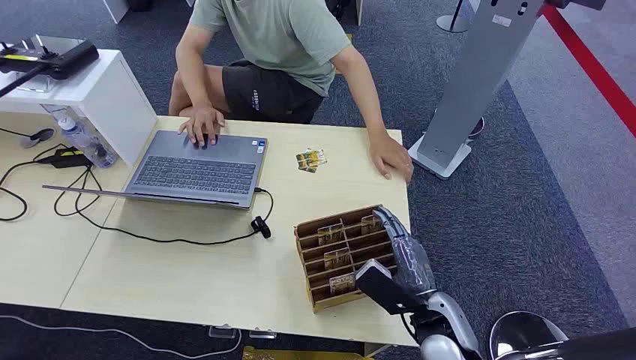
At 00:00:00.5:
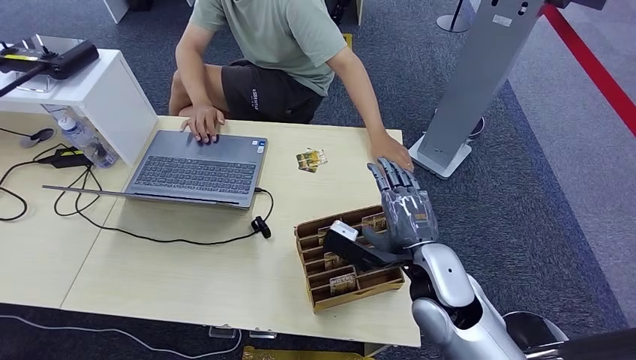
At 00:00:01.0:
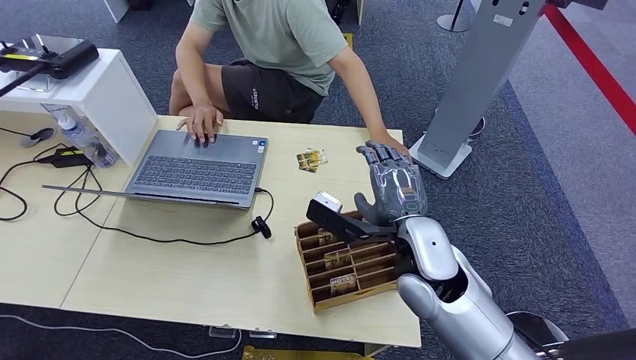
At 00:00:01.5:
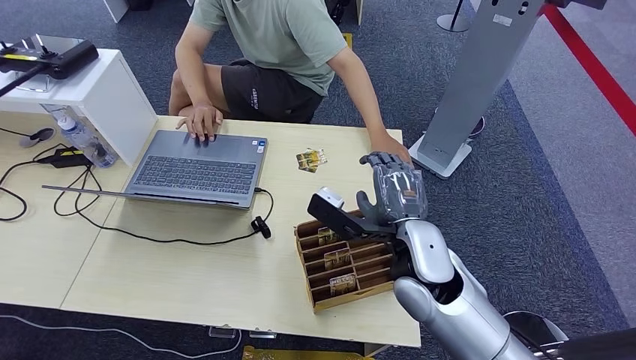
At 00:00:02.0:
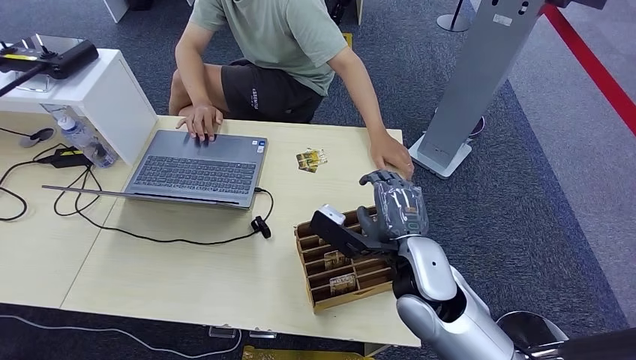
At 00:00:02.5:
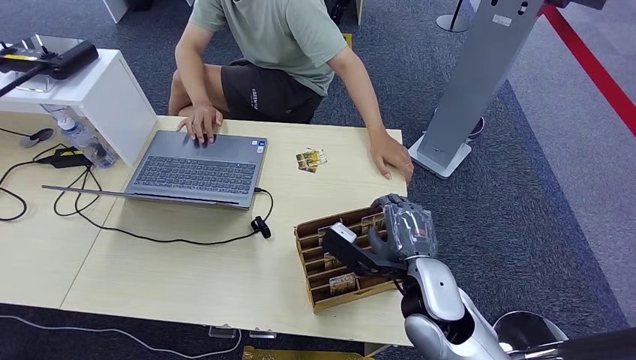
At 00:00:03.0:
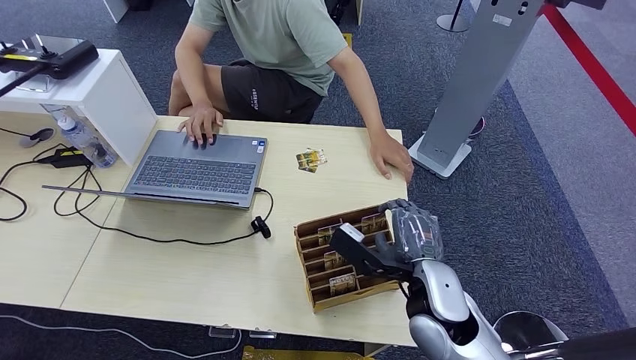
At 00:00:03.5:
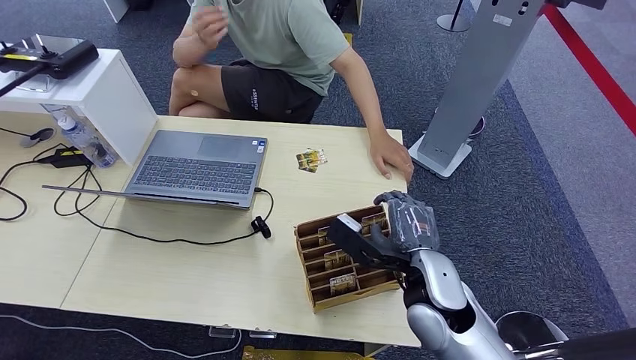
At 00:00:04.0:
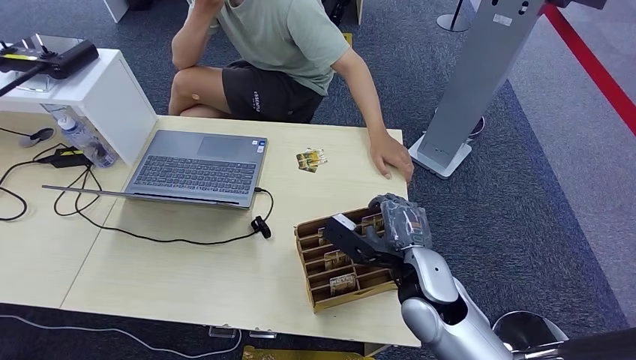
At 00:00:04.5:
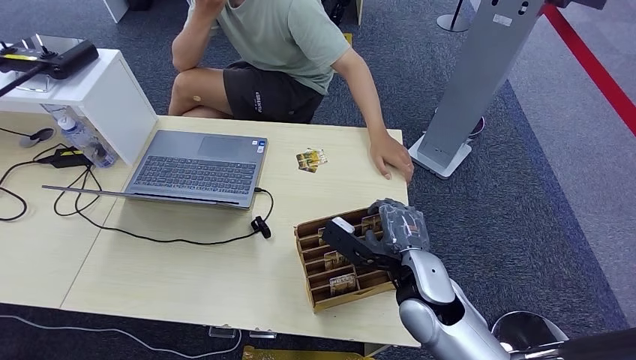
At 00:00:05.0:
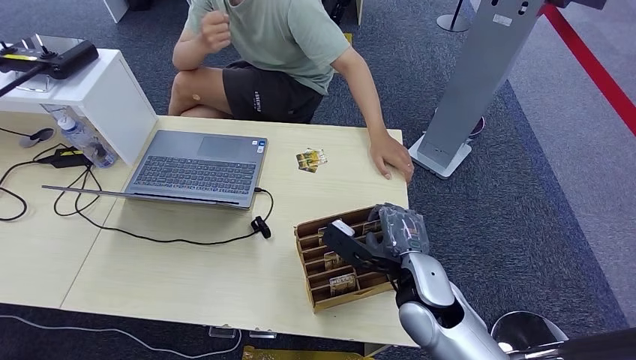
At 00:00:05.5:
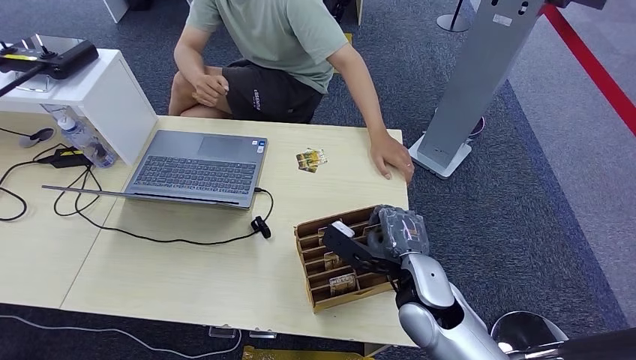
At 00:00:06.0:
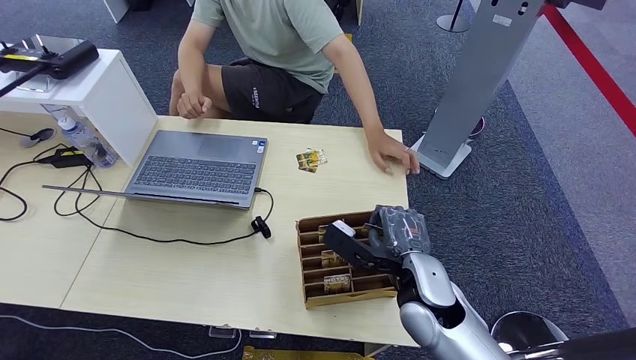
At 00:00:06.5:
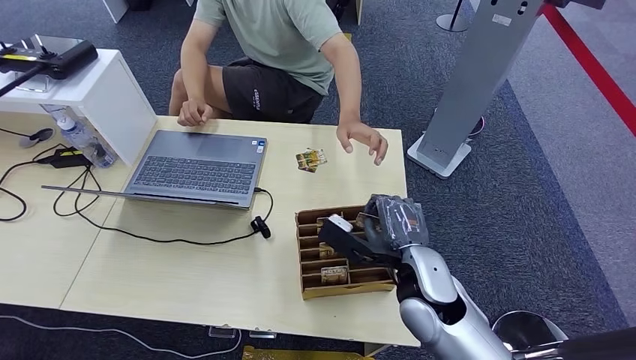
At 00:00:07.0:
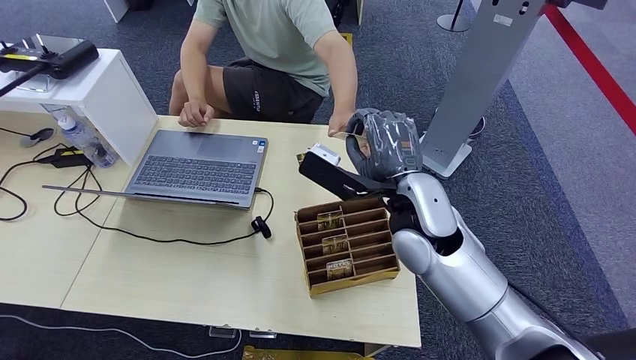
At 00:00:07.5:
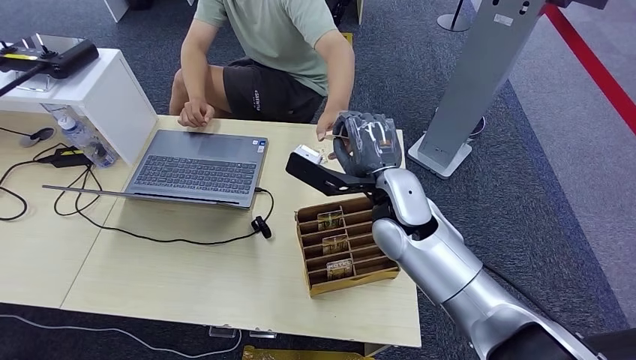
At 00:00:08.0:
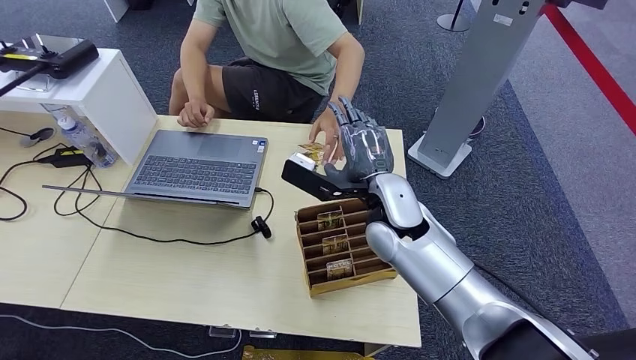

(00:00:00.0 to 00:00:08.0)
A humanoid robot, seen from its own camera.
Step, 00:00:00.0 - 00:00:06.5: Pick up the room card from the card holder.
Step, 00:00:07.0 - 00:00:08.0: Hand the room card to the target.
00:00:02.0 - 00:00:06.0: There are only small adjustments of the hands.
00:00:06.0 - 00:00:08.0: The right hand goes some 15 cm forward, upward and to the left.

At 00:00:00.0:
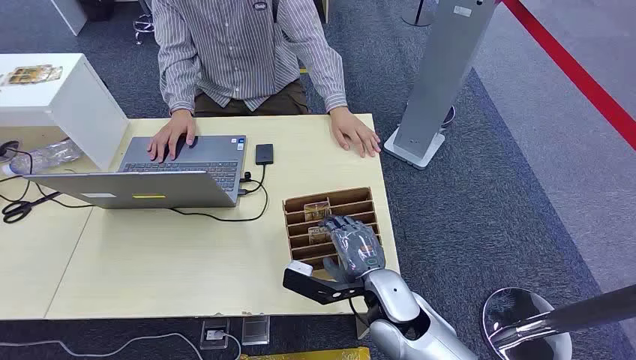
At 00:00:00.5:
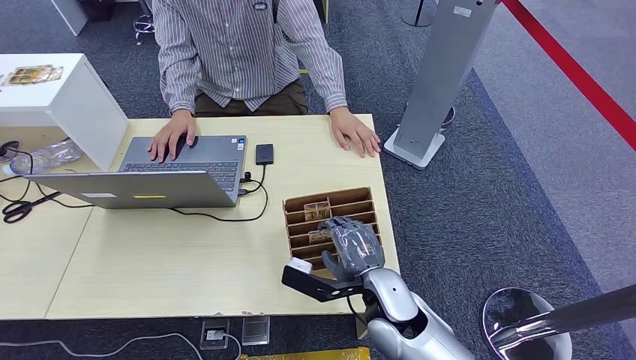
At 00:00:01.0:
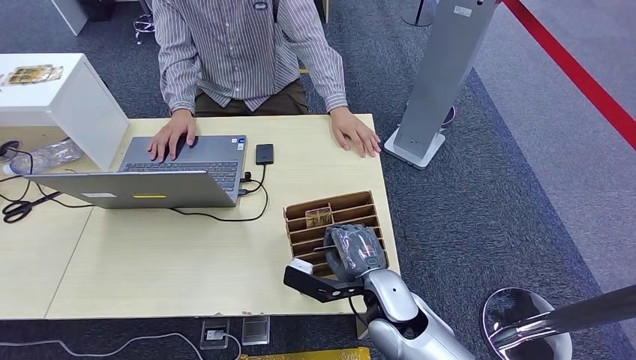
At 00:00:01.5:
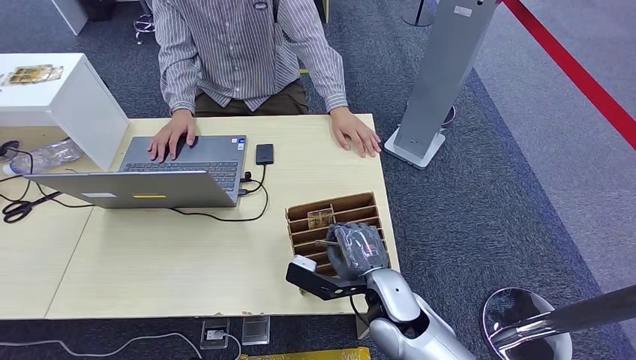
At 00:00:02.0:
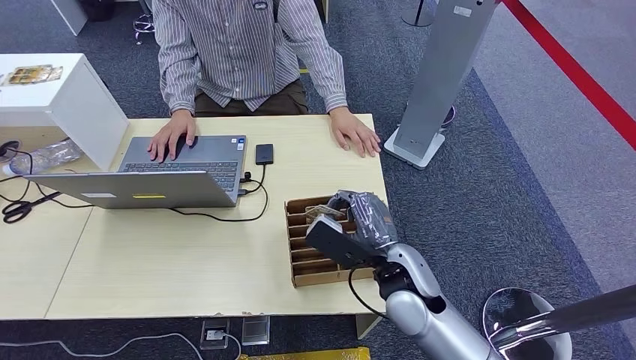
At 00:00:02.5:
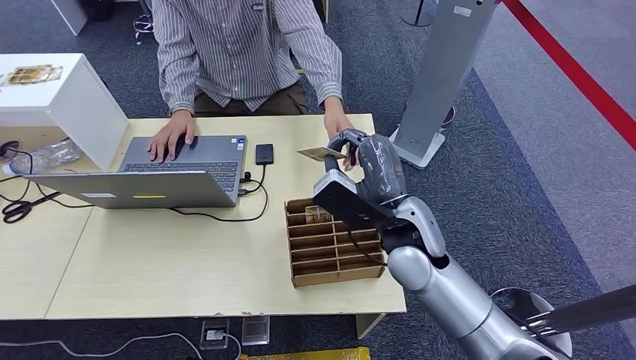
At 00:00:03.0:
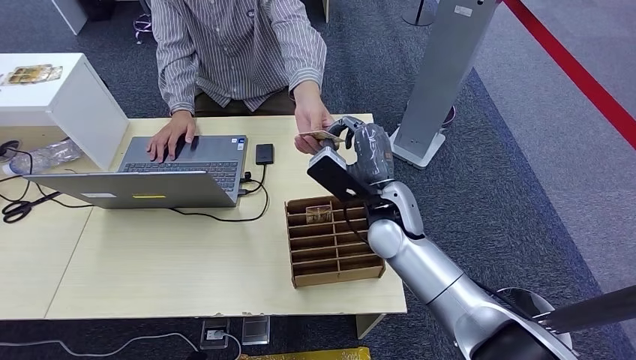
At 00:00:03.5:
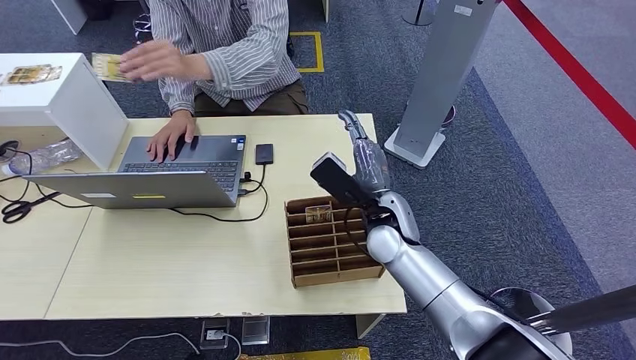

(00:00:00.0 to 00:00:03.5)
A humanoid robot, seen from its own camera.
Step, 00:00:00.0 - 00:00:02.0: Pick up the room card from the card holder.
Step, 00:00:03.0 - 00:00:03.5: Hand the room card to the target.
00:00:02.0 - 00:00:03.5: The right hand travels forward by roughly 10 cm.
